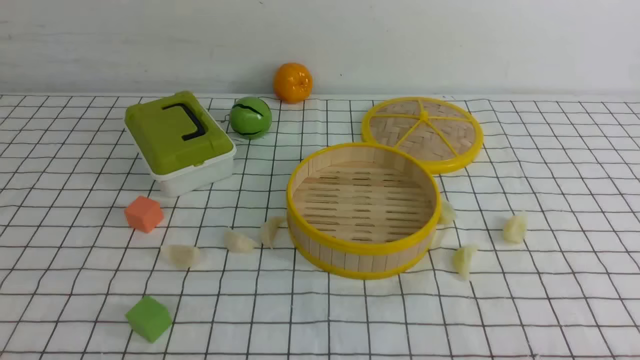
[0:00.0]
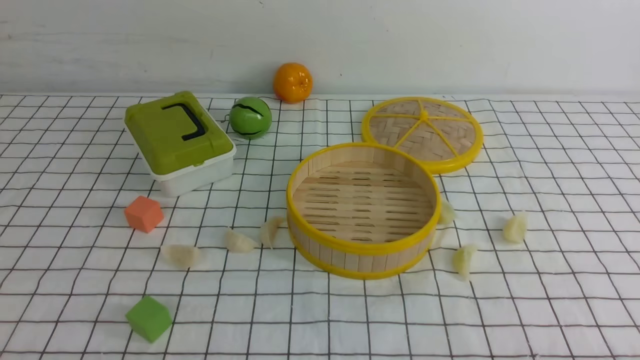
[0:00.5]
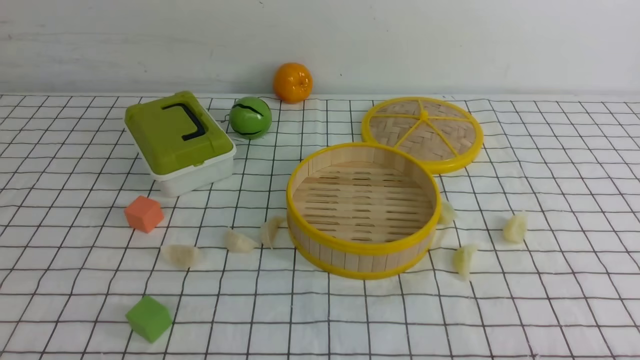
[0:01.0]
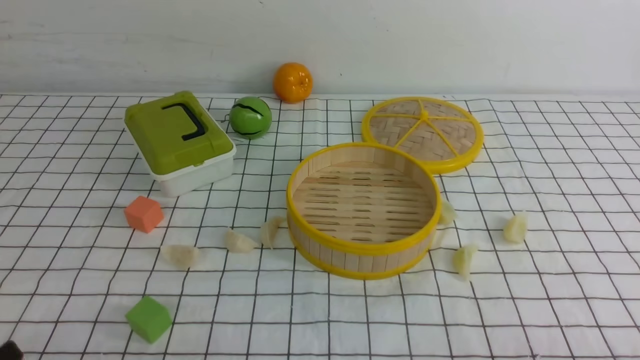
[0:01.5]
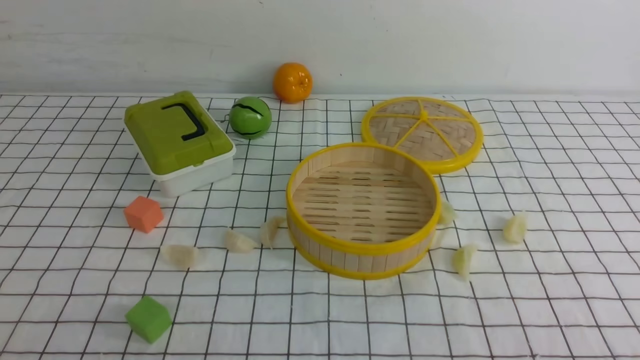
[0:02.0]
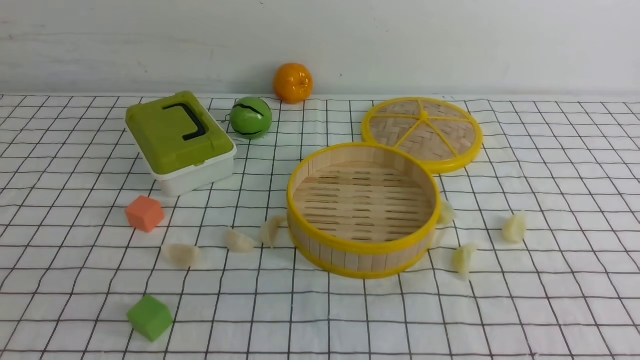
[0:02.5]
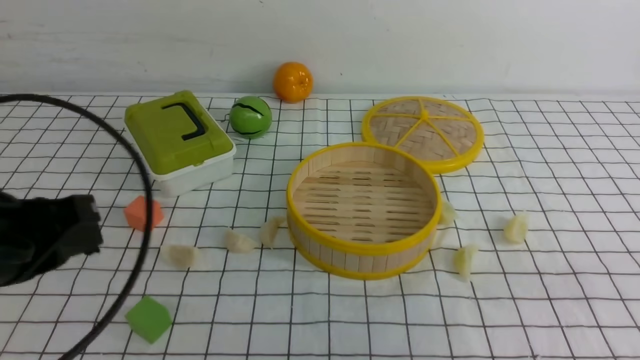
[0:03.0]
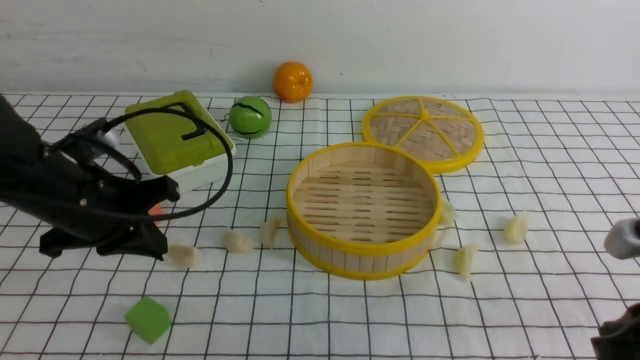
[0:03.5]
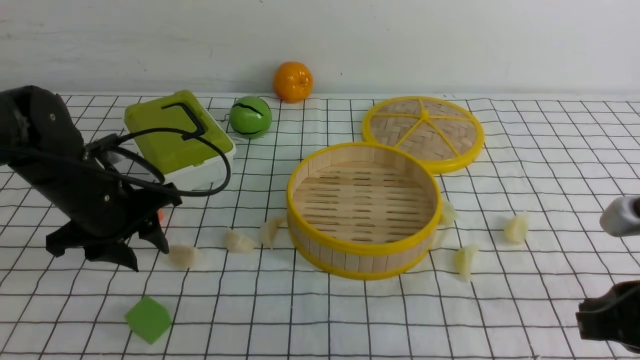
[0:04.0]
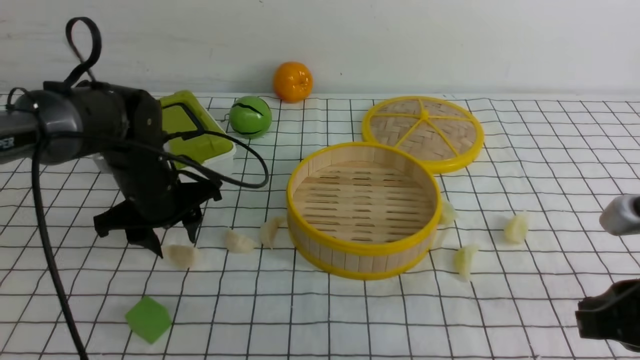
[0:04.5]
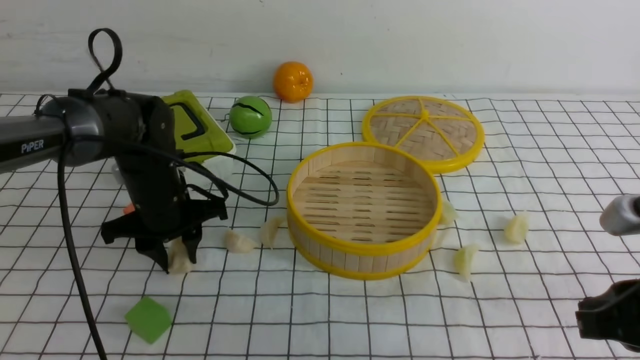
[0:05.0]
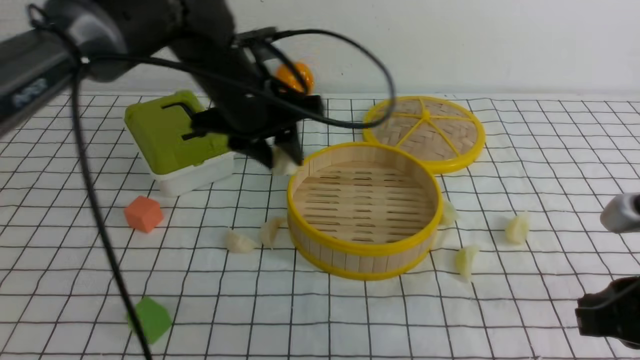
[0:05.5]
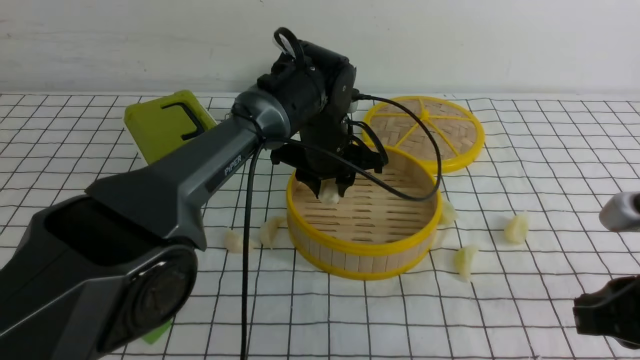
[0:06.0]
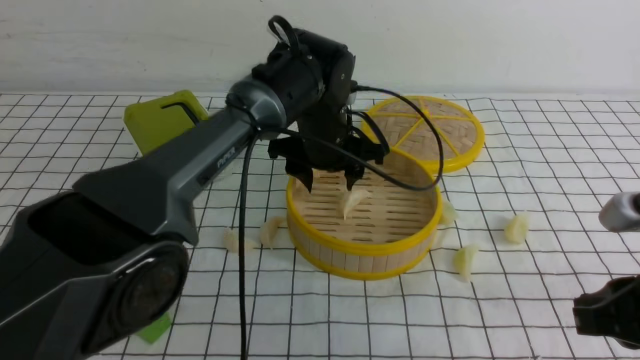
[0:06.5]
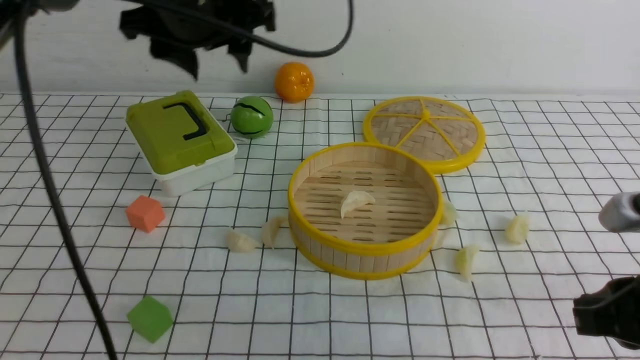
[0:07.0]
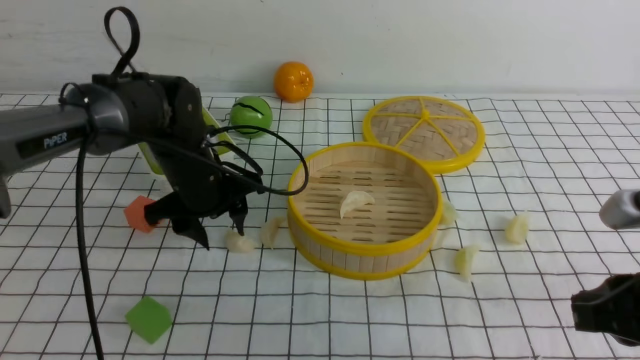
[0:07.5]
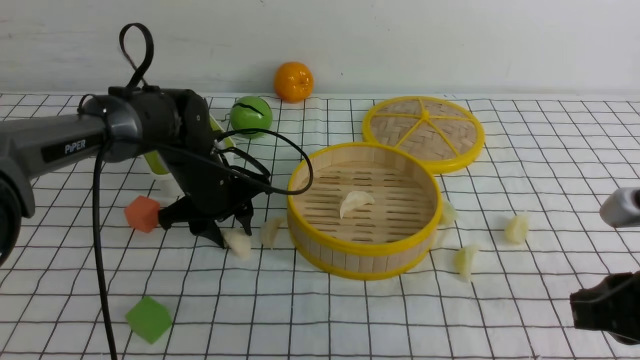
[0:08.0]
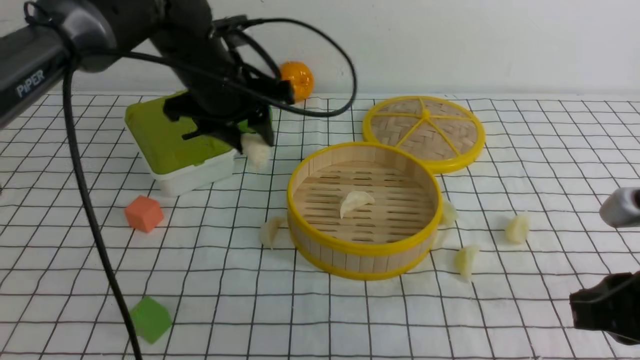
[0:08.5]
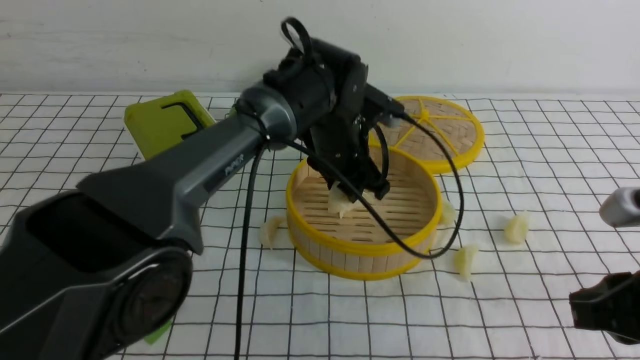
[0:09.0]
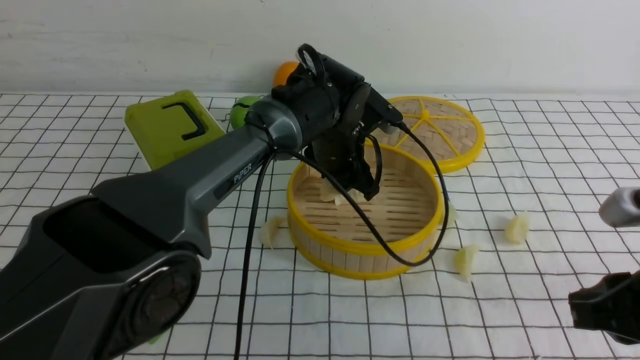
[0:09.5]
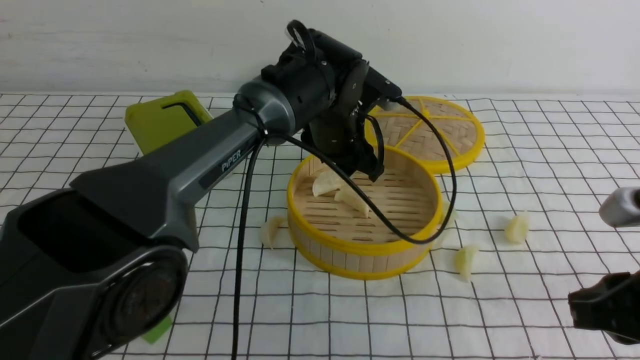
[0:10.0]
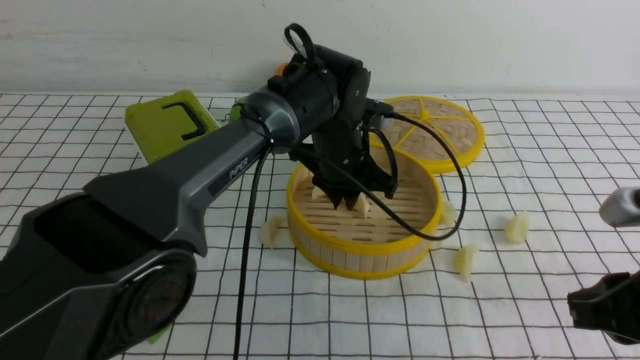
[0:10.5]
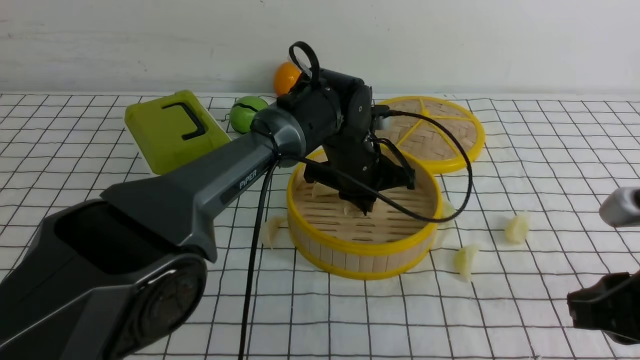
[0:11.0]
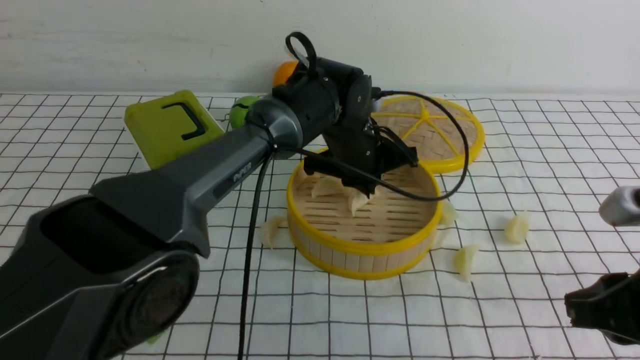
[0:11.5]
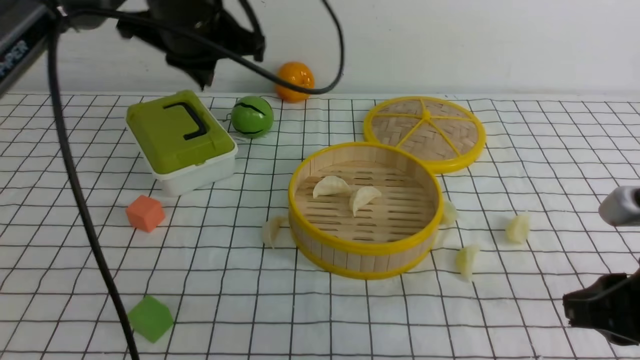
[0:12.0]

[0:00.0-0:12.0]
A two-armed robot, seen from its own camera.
Task of the whole recording: put the dumplings into the steamer on the table with the white tablecloth.
Step, 0:00.0 to 0:05.0: use the left arm to grab a dumpling.
Step, 0:05.5 to 0:06.5: use the left arm to put the dumpling into the steamer.
Step, 0:07.0 to 0:08.0: use the left arm to grab a dumpling.
Step, 0:08.5 to 0:10.0: use the left arm to put the dumpling into the steamer.
0:02.0 to 0:04.0: The left gripper moves forward, approximately 30 cm, and closes and opens again. The right gripper goes roughly 15 cm forward, and closes.
0:04.0 to 0:06.0: The left gripper moves to the right and forward, some 25 cm.
0:06.0 to 0:08.0: The left gripper goes roughly 15 cm to the left, and travels upward and back again, approximately 15 cm each way.
0:08.0 to 0:10.0: The left gripper is displaced to the right by about 15 cm.
0:10.0 to 0:12.0: The left gripper goes some 15 cm to the left and upward, and closes its fingers.

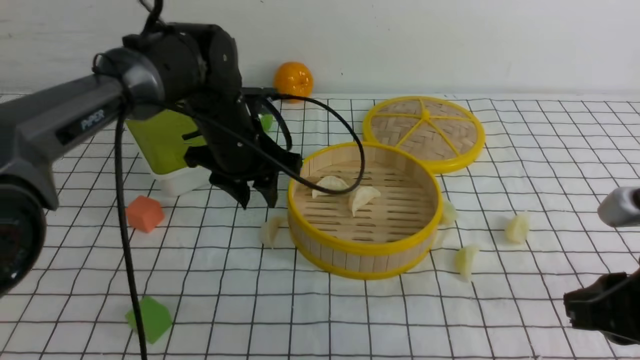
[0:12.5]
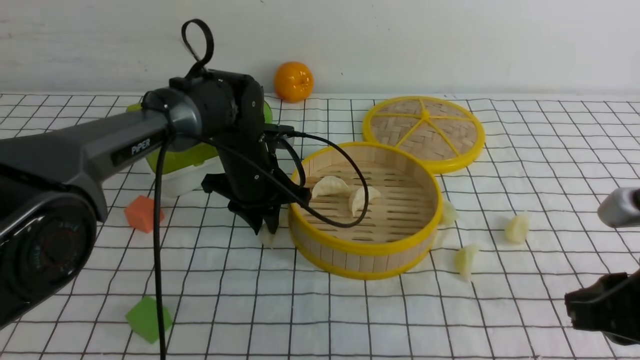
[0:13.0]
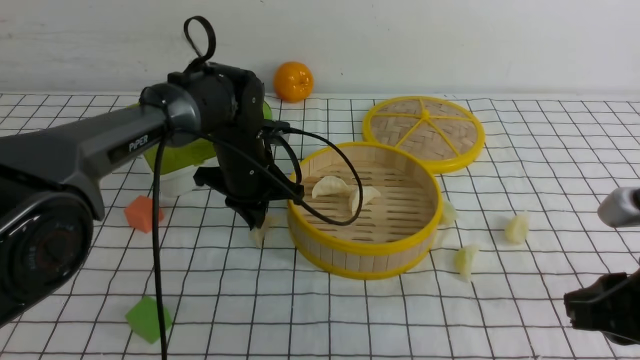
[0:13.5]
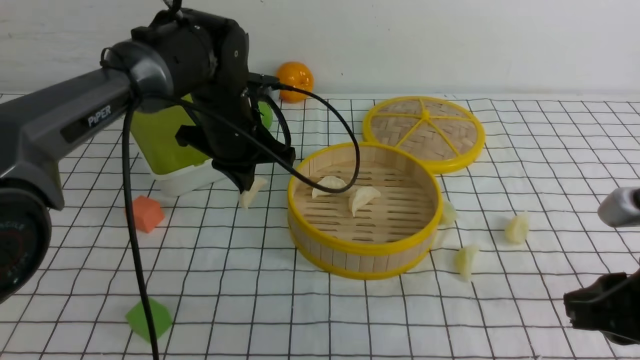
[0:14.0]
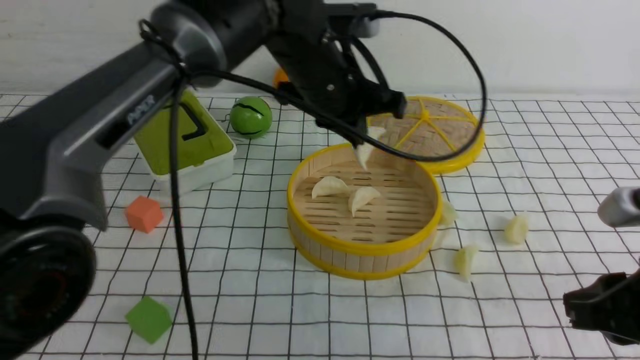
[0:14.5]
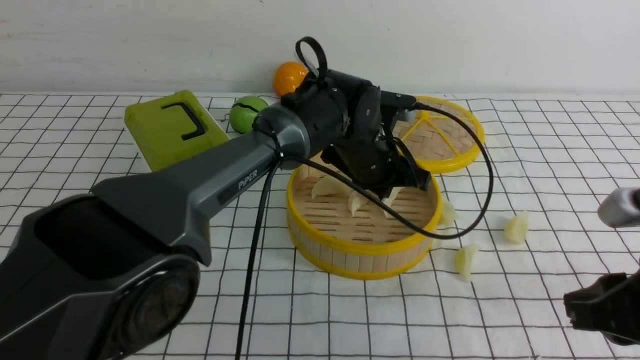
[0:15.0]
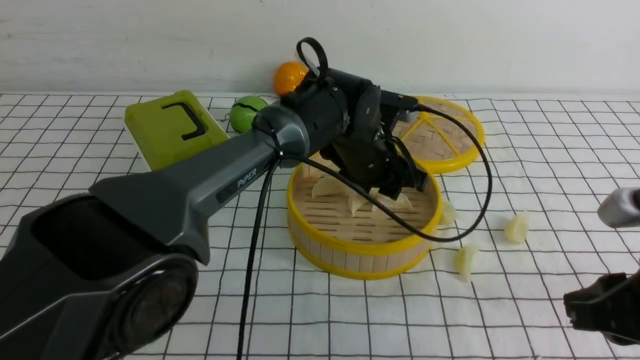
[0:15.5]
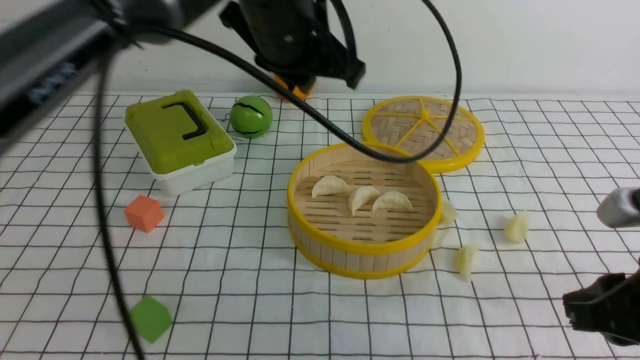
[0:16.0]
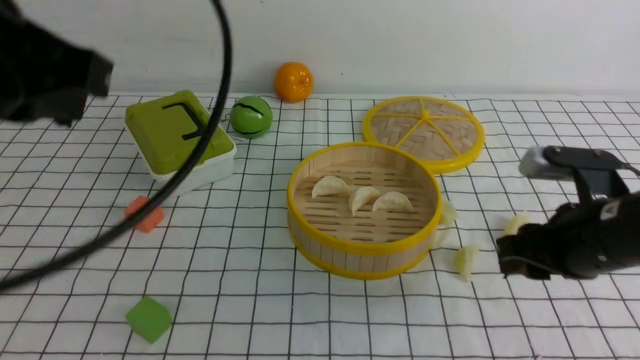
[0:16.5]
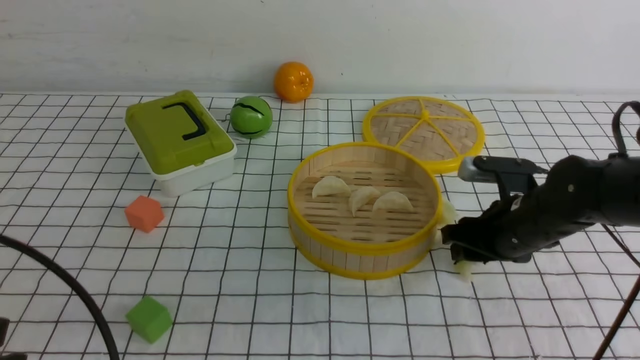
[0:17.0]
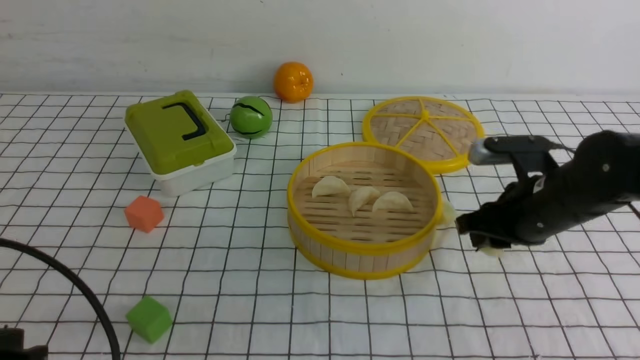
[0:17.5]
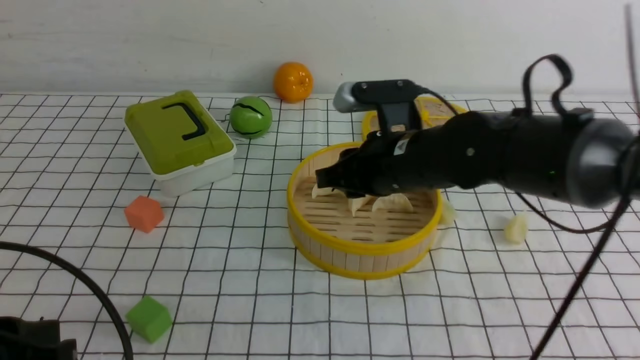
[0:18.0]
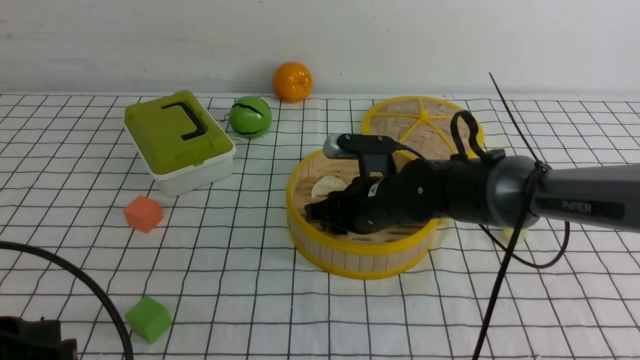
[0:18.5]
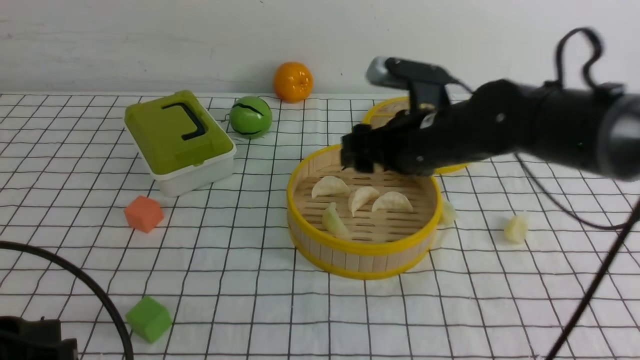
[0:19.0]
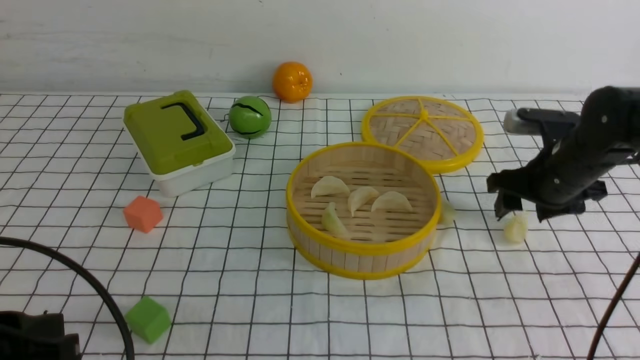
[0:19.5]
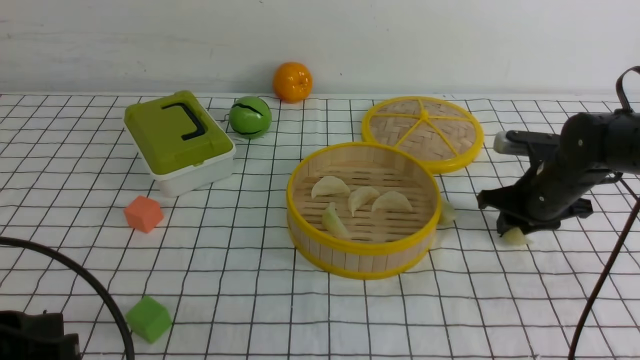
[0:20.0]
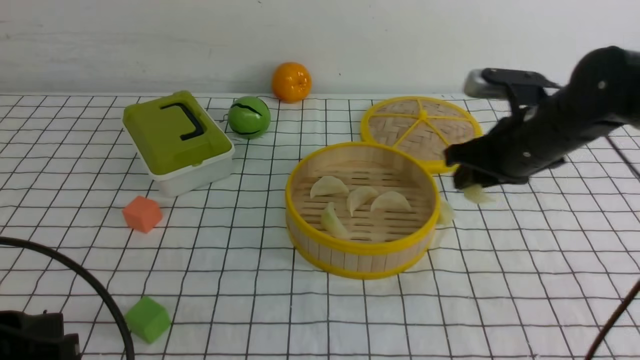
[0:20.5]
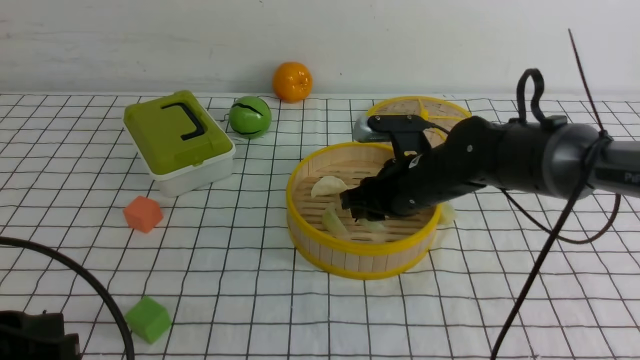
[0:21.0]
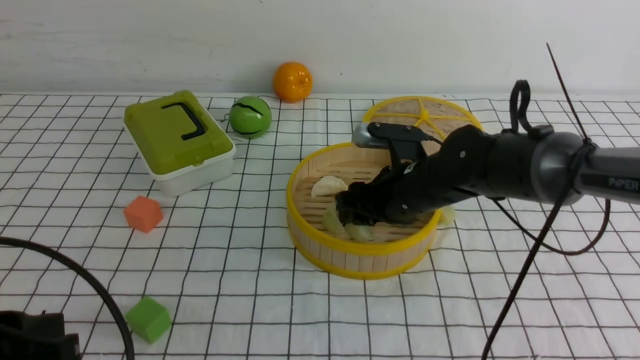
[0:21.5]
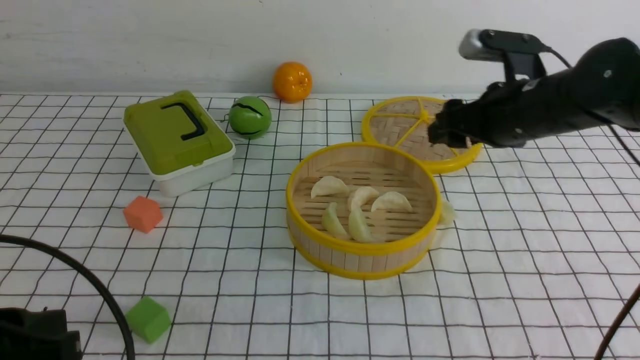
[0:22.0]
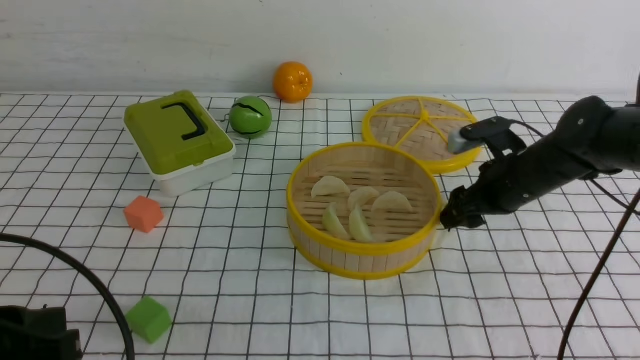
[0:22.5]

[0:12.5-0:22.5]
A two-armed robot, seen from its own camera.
Task of the whole recording: put the dumplings into the steamer on the table with the white tablecloth.
Step, 0:14.0 to 0:15.5: use the left arm to put the dumpling into the steamer.
Step, 0:16.0 to 0:17.5: use the right arm to grab a dumpling.
Step, 0:18.0 to 0:19.0: use the right arm to put the dumpling into the steamer.
Step, 0:19.5 to 0:20.5: use the right arm to grab a dumpling.
Step, 0:21.0 to 0:21.5: use the right arm to put the dumpling into the steamer.
0:12.5 to 0:14.5: The left gripper goes about 15 cm to the right and upward, and closes.
0:14.5 to 0:16.5: The right gripper shifts about 10 cm forward; the left gripper travels backward, to the left and upward by approximately 30 cm, and opens, then closes once more.
0:16.5 to 0:18.5: The left gripper shifts about 20 cm downward and backward, while the right gripper heads to the left and forward, covering roughly 20 cm.
0:18.5 to 0:20.5: The right gripper is displaced to the right and upward by approximately 15 cm, and opens, then closes again.
0:20.5 to 0:22.5: The right gripper shifts roughly 10 cm downward and to the right, and opens up.
